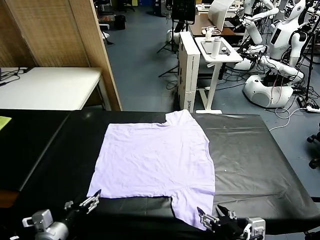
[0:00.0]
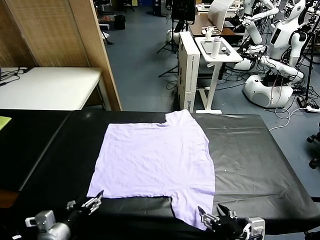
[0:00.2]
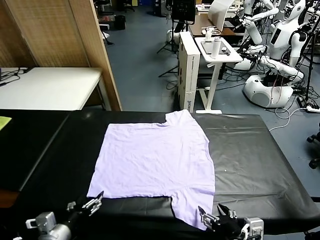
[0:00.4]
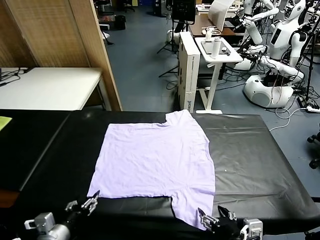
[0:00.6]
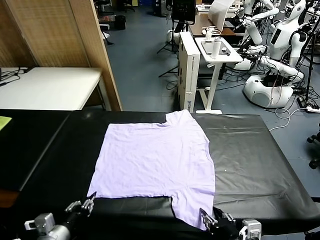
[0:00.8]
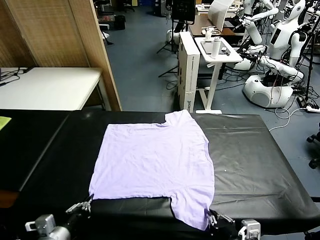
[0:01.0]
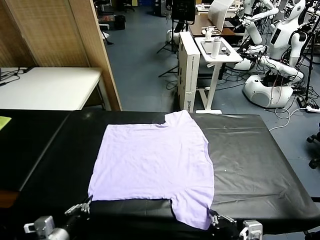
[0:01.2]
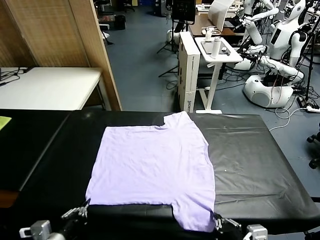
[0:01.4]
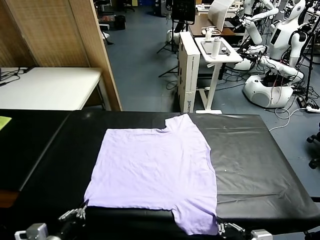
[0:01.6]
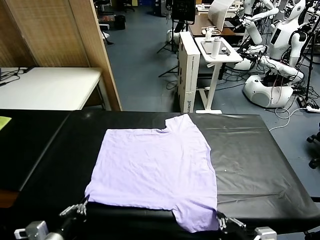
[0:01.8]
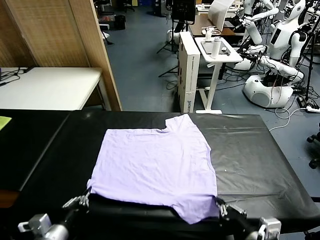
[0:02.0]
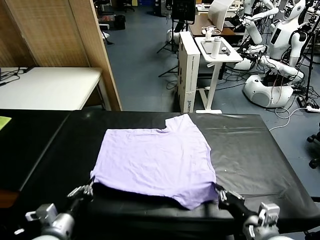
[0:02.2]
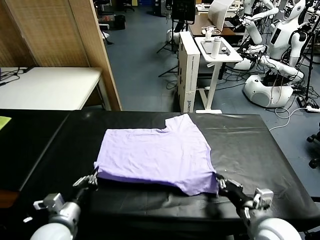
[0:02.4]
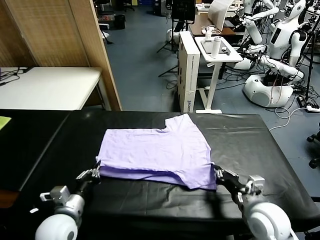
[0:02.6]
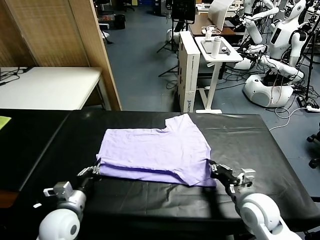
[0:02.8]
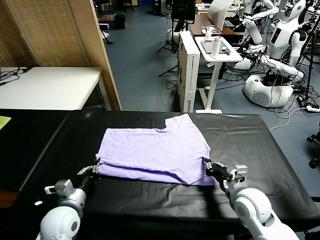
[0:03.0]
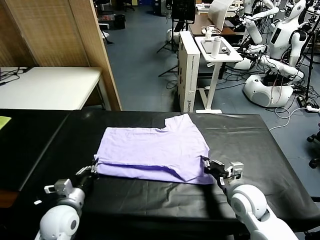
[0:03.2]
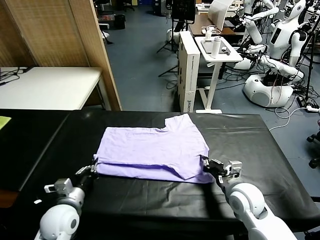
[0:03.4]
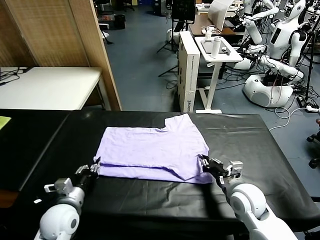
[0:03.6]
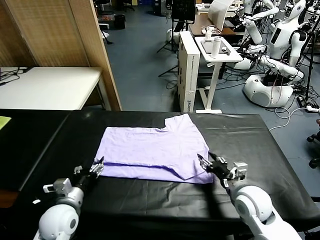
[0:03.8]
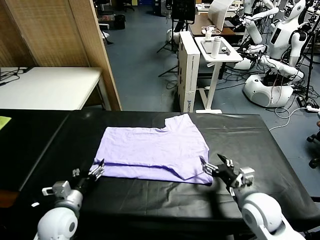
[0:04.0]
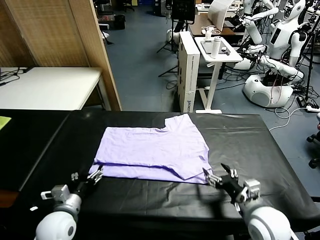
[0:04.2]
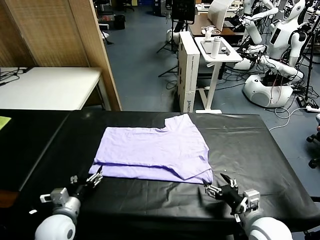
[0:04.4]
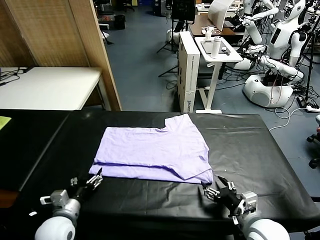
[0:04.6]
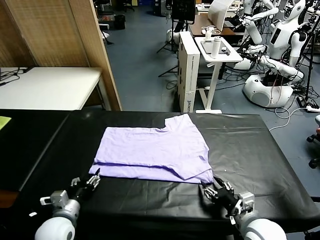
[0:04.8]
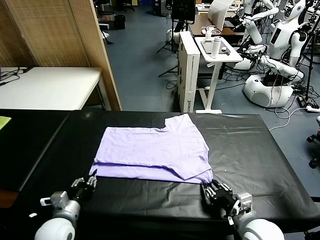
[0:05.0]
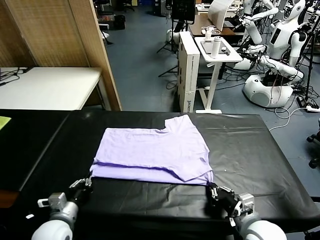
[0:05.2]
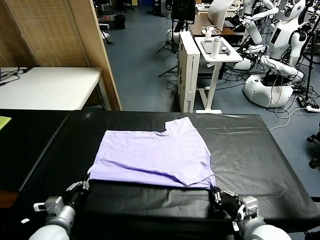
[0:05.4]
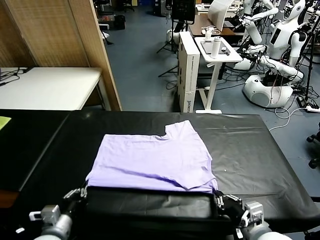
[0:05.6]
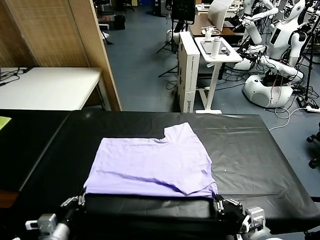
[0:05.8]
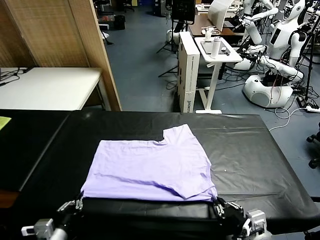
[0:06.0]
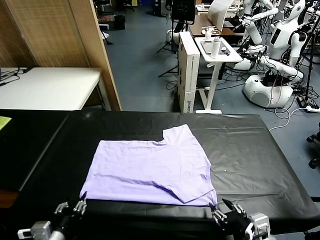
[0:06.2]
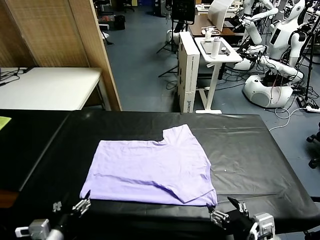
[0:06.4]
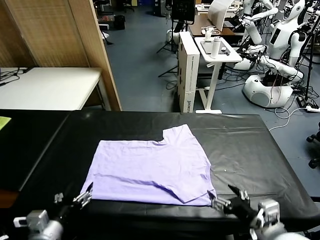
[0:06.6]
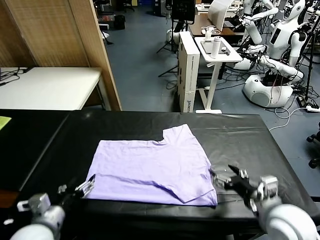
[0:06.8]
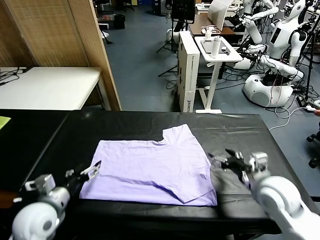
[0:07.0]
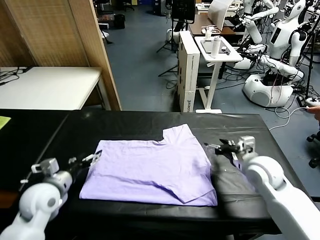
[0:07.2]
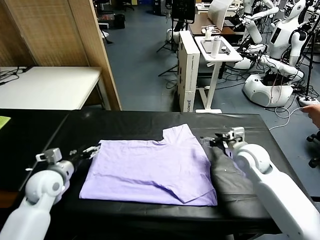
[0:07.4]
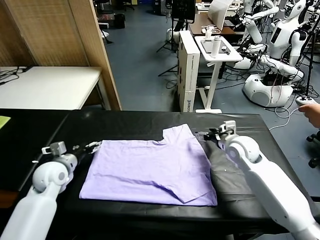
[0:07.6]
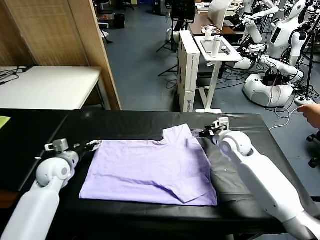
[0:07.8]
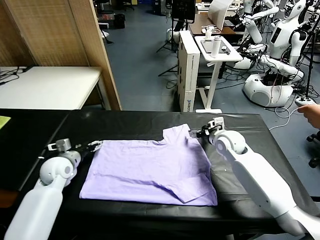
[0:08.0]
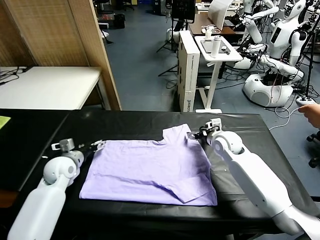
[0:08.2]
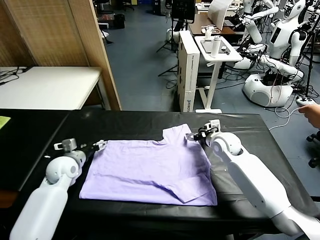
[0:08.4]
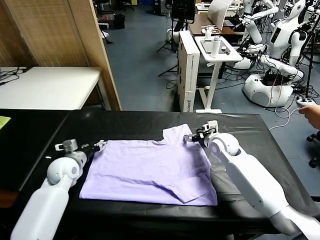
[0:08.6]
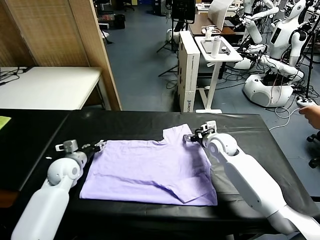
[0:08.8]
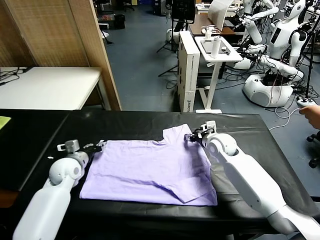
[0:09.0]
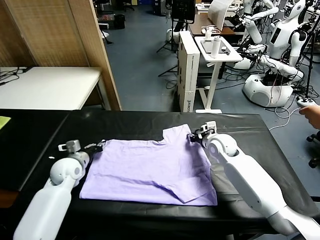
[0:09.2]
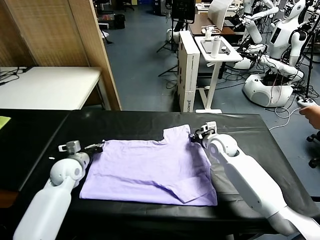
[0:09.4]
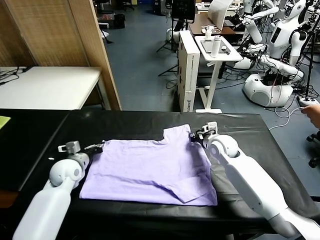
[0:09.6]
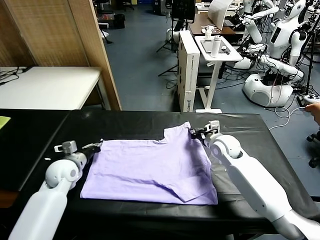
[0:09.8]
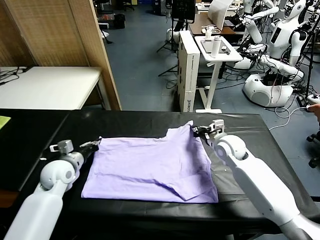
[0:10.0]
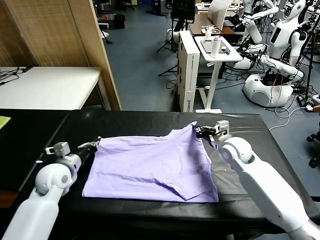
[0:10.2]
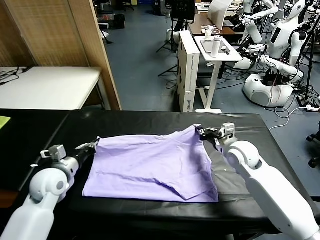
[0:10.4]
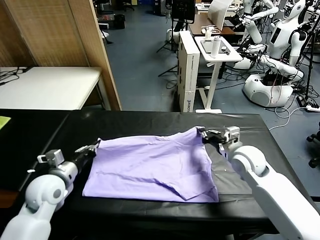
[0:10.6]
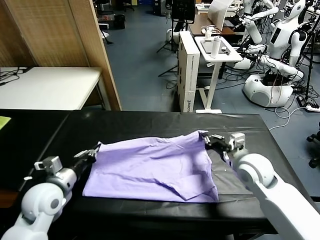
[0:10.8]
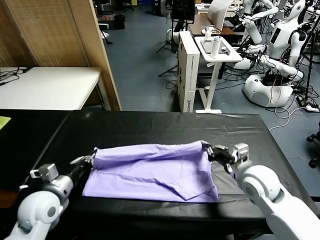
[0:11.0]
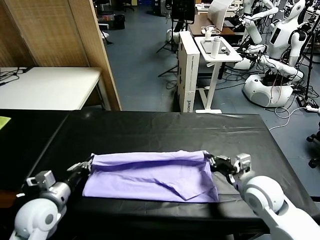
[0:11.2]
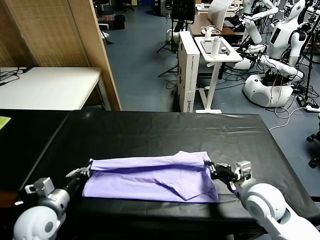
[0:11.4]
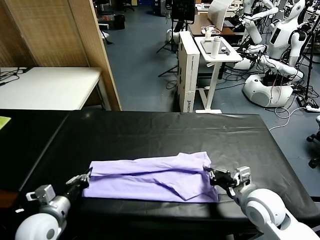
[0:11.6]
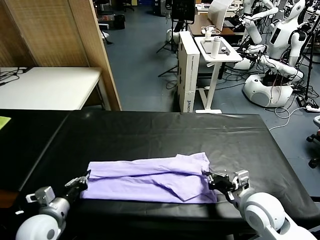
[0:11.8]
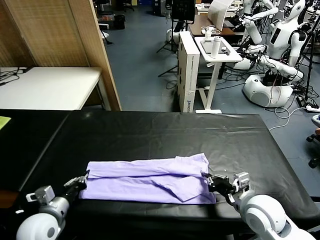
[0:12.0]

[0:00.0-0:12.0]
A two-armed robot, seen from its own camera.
Task of the whole recording: fold and organize the clothes.
Step, 0:00.0 to 0:01.2: use both grippers simultaneously to clamp the lower edge of the clothing fabric.
Step, 0:01.6 to 0:03.8: use both grippers to drag the lower edge of the fabric forward and fold it over the upper edge.
Step, 0:04.0 to 0:06.2: Drag the clothes downward with both gripper.
Step, 0:06.4 to 0:09.6: use both grippers simultaneously to clamp the upper edge of the clothing fabric.
0:01.6 to 0:03.0: Both grippers travel together forward, roughly 15 cm.
0:03.0 to 0:04.4: The right gripper shifts about 10 cm backward, and opens its fingers; the left gripper opens.
0:04.4 to 0:06.0: The right gripper goes roughly 10 cm backward and upward, and closes, then reopens; the left gripper shifts some 10 cm backward, and closes up.
0:06.0 to 0:07.6: The two grippers go some 30 cm forward. The left gripper opens up.
0:07.6 to 0:09.0: The right gripper closes up. The left gripper closes its fingers.
0:09.0 to 0:10.4: The two grippers go approximately 10 cm backward and upward.
0:10.4 to 0:12.0: Both grippers travel together backward, about 15 cm.

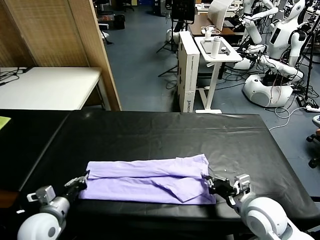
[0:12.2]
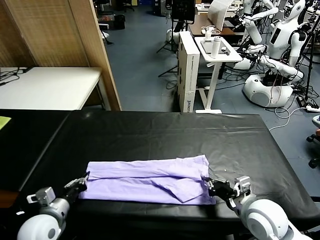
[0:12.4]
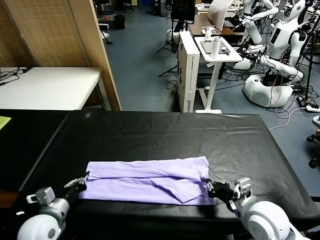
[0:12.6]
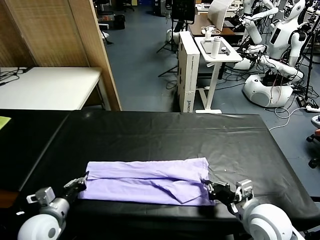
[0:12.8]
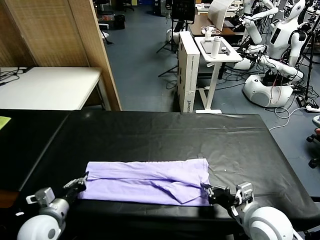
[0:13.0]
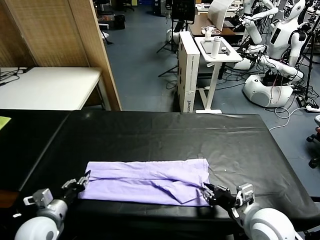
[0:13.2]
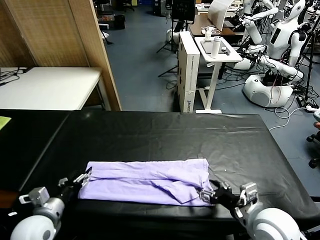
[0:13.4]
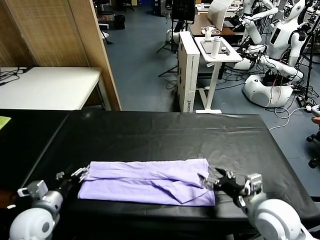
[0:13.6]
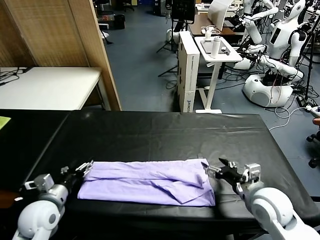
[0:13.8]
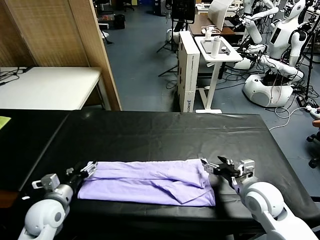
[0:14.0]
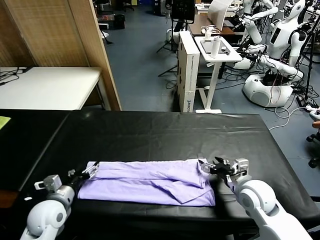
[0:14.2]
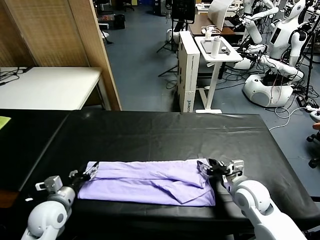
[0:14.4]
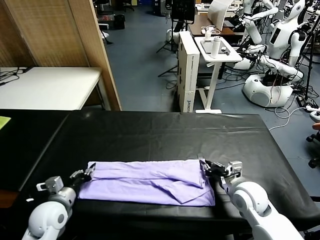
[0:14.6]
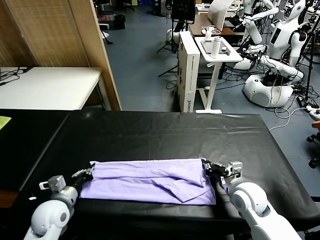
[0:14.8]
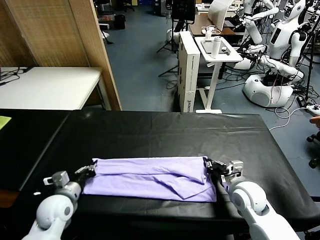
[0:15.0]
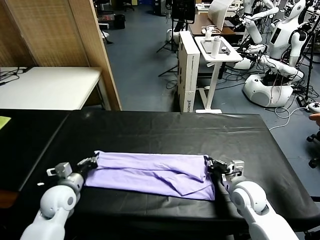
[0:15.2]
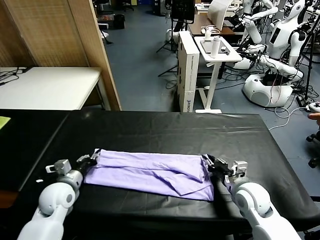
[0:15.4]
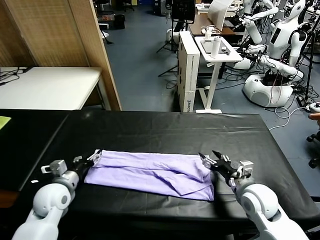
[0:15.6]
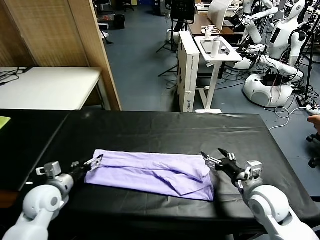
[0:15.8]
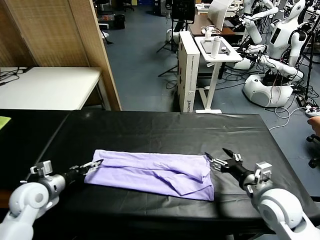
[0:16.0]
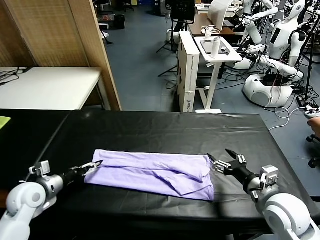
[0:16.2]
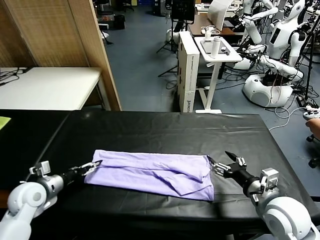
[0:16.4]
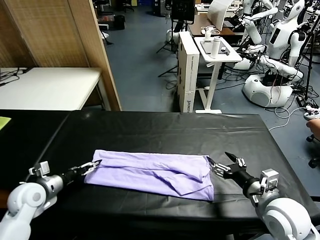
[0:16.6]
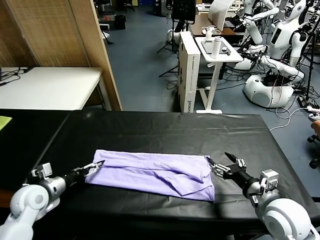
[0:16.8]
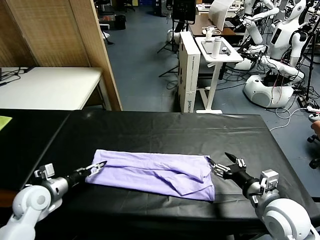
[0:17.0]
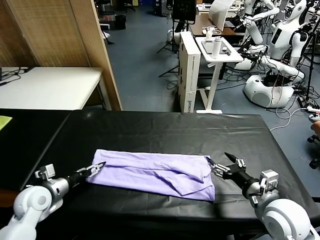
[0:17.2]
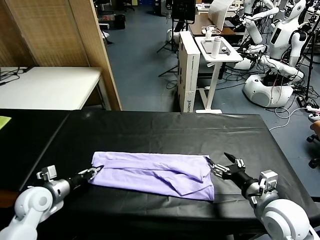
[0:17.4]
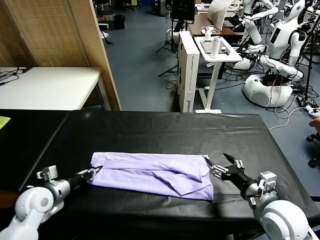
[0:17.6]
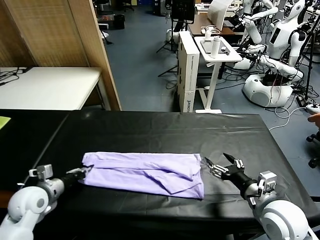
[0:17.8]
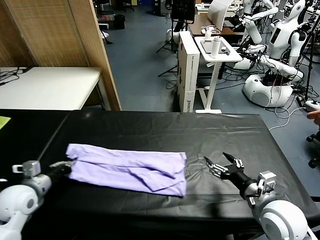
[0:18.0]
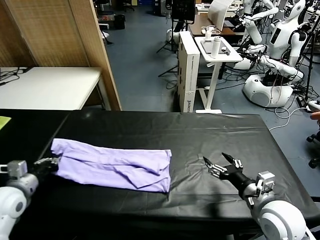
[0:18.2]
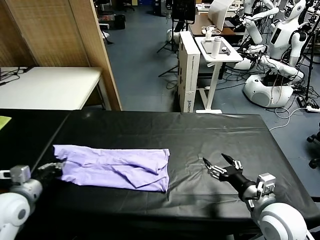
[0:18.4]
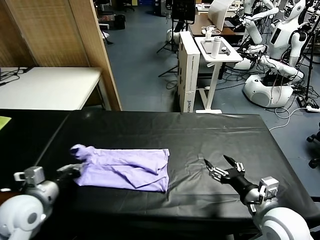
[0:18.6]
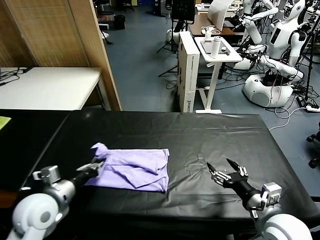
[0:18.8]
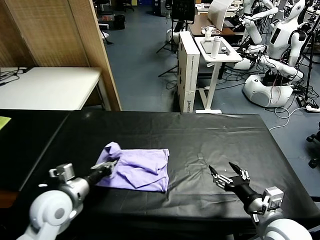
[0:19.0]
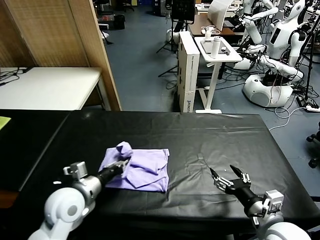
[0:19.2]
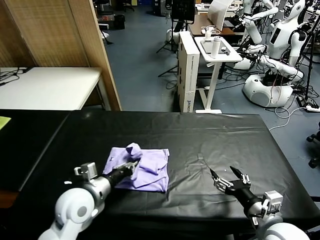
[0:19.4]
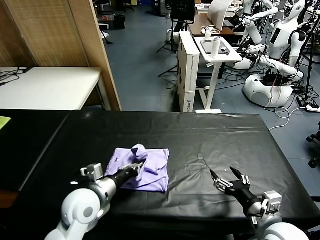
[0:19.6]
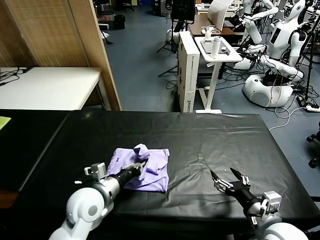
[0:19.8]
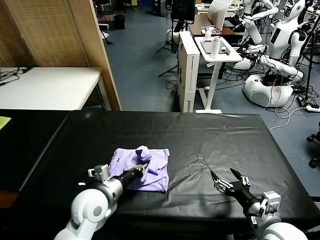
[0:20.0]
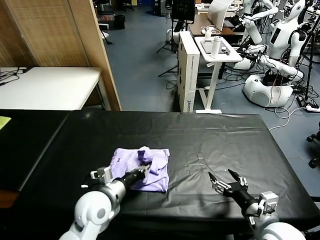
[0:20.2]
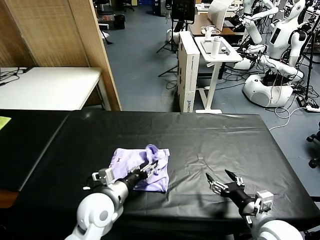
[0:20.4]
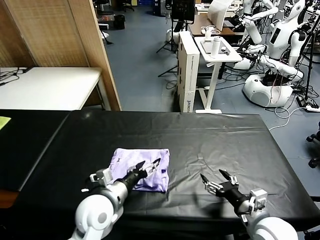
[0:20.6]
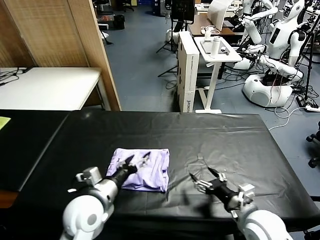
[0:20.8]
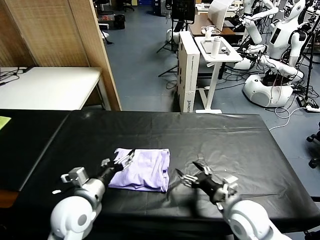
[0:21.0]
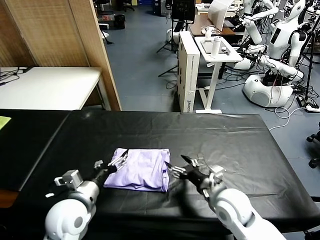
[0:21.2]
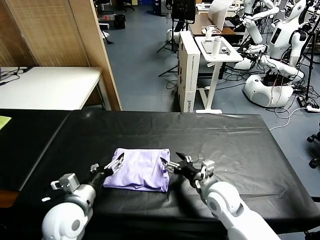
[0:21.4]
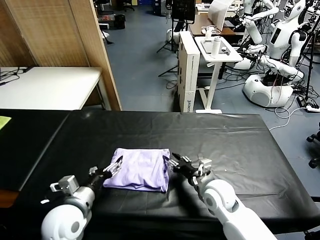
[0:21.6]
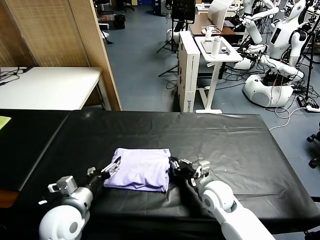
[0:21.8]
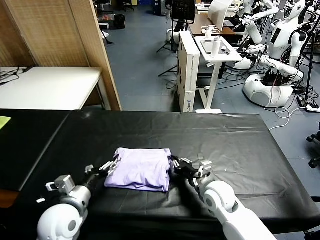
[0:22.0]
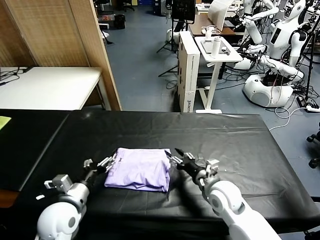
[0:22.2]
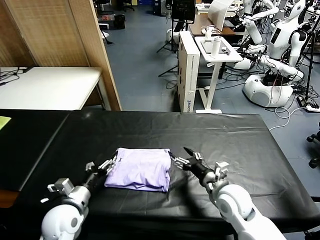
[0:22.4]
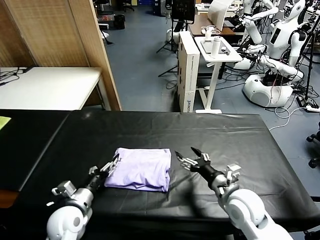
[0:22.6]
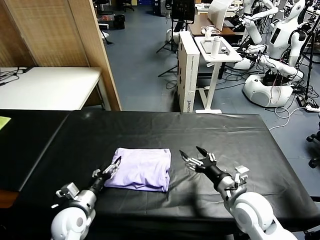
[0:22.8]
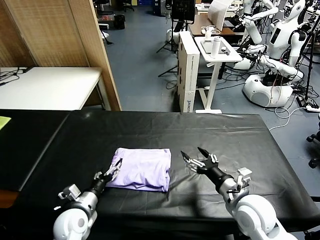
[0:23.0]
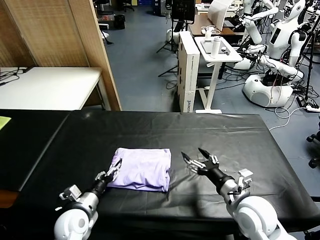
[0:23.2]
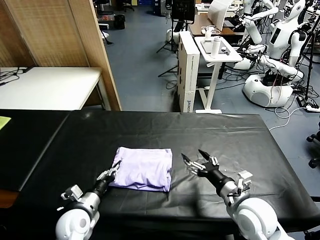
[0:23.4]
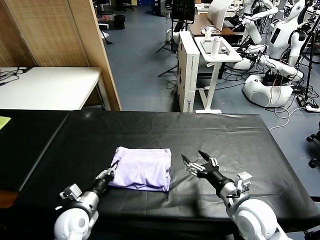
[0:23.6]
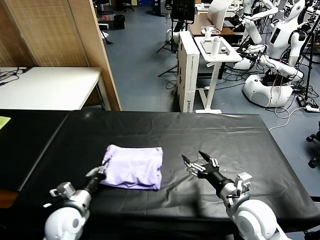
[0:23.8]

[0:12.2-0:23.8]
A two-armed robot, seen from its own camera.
Task of the whole recording: fold and organize the clothes.
Step, 0:13.6 to 0:17.6: use the left gripper to clamp the left edge of the fabric.
Step, 0:17.8 to 0:20.6: use the left gripper to drag the left edge of the fabric to the left and folds it over the right edge.
0:12.2 to 0:13.6: The left gripper opens its fingers. Meanwhile the right gripper opens.
0:13.6 to 0:15.0: The right gripper travels downward and forward by about 10 cm, and closes up. The left gripper moves forward, approximately 5 cm, and closes.
0:15.0 to 0:16.6: The right gripper moves backward and upward, approximately 10 cm, and opens up; the left gripper shifts some 10 cm to the left, and opens.
0:16.6 to 0:18.0: The left gripper closes up.
0:18.0 to 0:19.4: The left gripper shifts about 20 cm to the right. The right gripper moves some 5 cm.
0:19.4 to 0:21.0: The right gripper moves forward and to the left, some 10 cm. The left gripper opens its fingers.
0:21.0 to 0:22.4: The left gripper goes approximately 10 cm downward and to the left. The right gripper closes, then opens again.
0:22.4 to 0:23.8: The right gripper travels backward by about 5 cm, while the left gripper closes.
